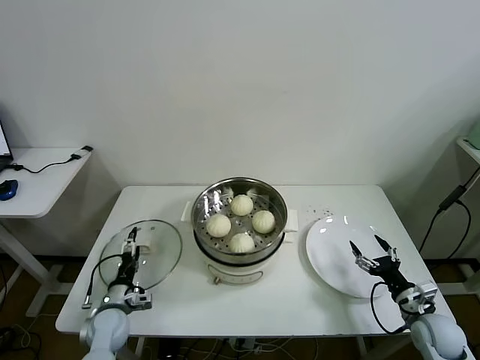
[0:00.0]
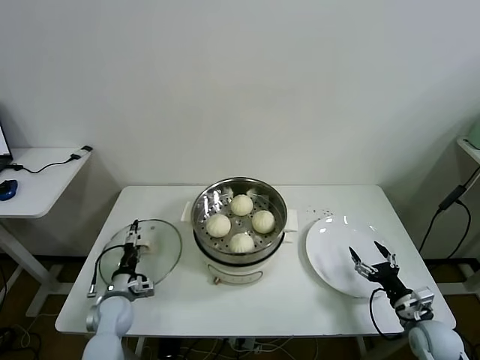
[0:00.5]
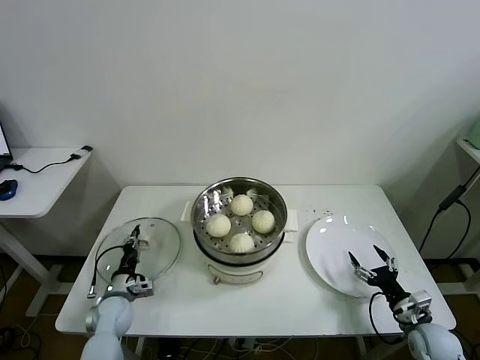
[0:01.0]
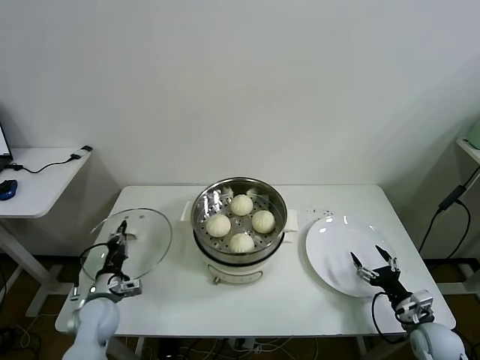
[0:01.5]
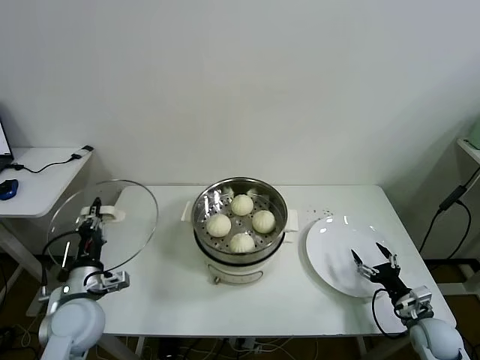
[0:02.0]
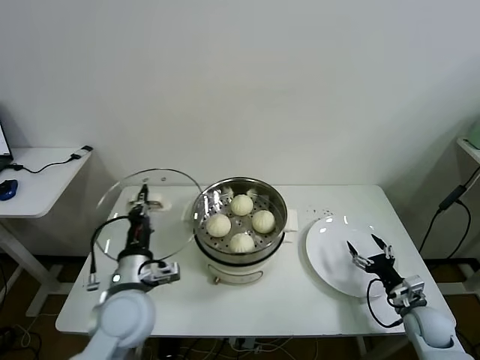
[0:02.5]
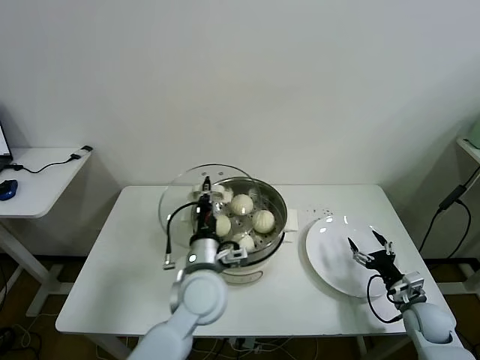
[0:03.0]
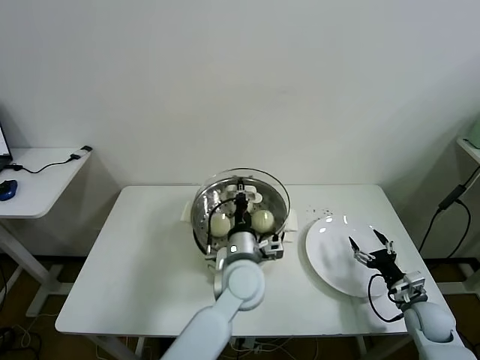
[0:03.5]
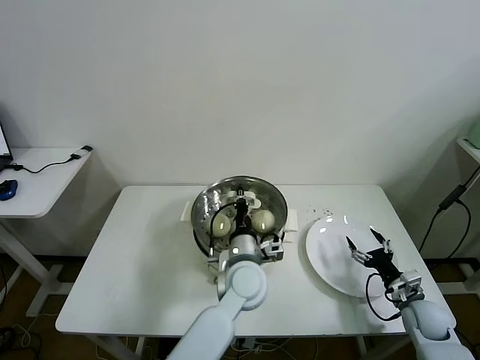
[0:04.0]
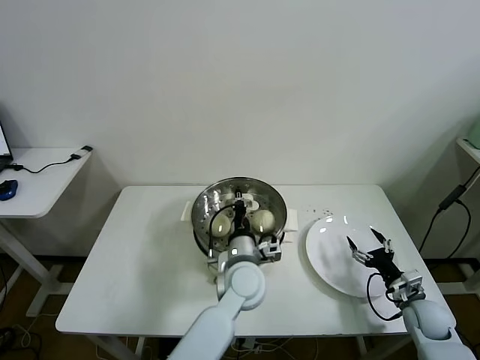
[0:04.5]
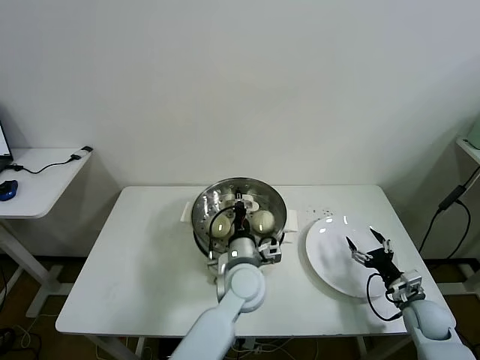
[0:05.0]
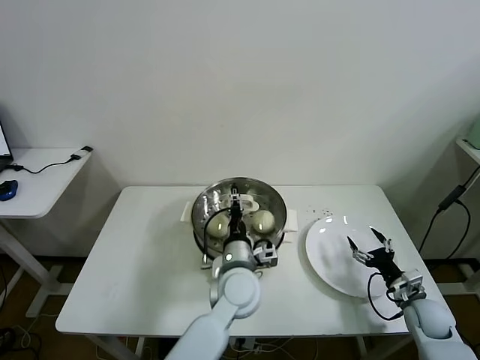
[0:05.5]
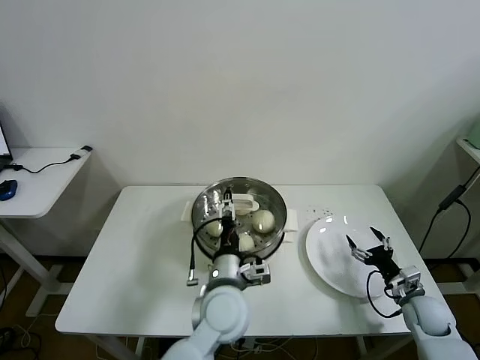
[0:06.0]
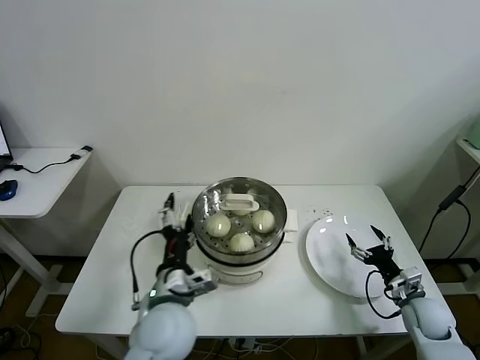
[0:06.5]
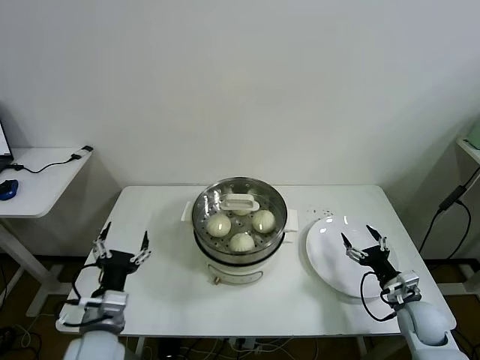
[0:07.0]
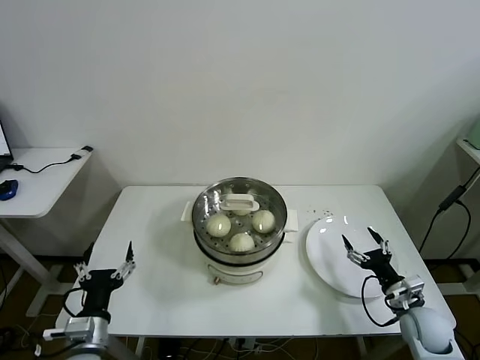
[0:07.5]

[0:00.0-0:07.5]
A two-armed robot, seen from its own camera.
Task of the whole recording: take steamed baozi put them in steamer then cover it.
Step, 0:01.5 to 0:05.5: Place the pot lid on the steamer with left gripper.
0:00.0 to 0:02.0: The left gripper heads upward, covering approximately 15 cm, and closes.
0:02.0 to 0:04.0: The left gripper travels to the right by approximately 35 cm.
0:04.0 to 0:05.5: The left gripper opens up.
0:05.5 to 0:07.5: The left gripper goes some 30 cm to the left and backward, and opens up, while the right gripper ends up some 5 cm from where it was.
